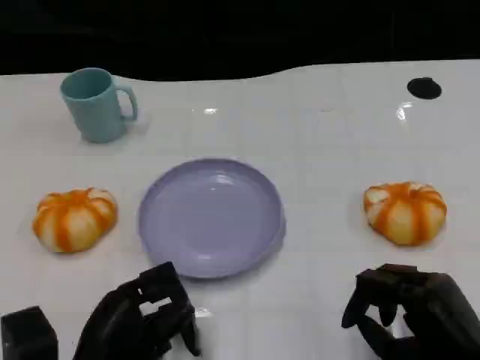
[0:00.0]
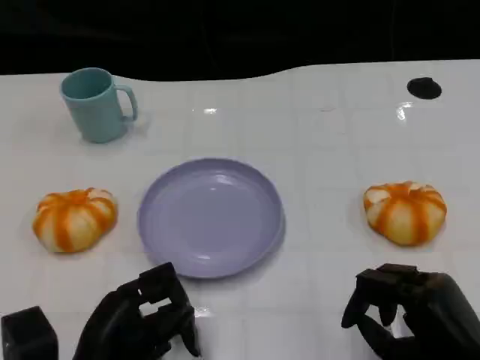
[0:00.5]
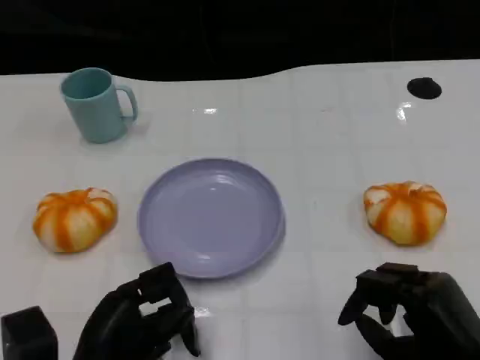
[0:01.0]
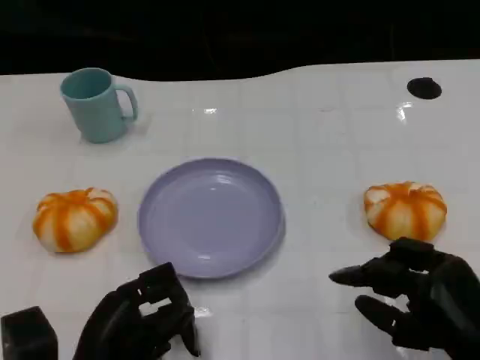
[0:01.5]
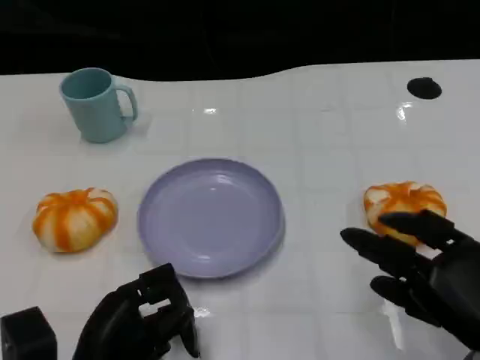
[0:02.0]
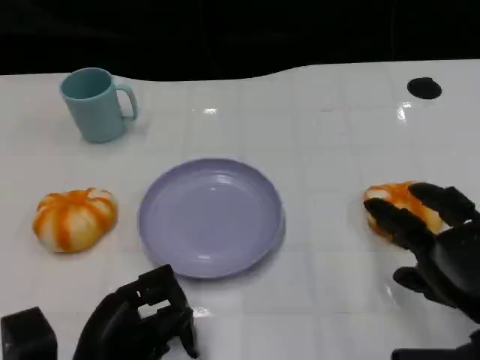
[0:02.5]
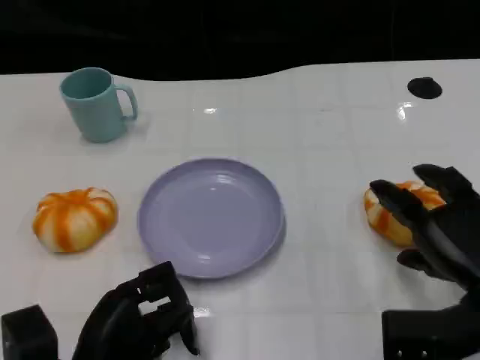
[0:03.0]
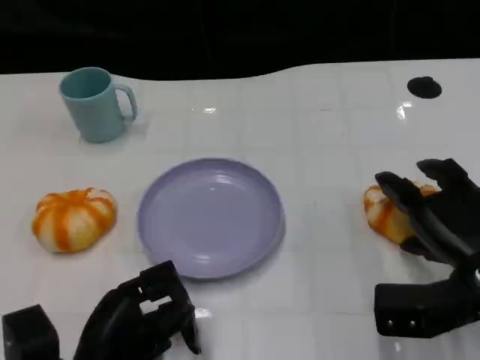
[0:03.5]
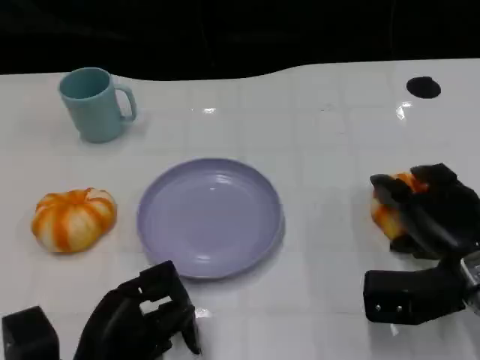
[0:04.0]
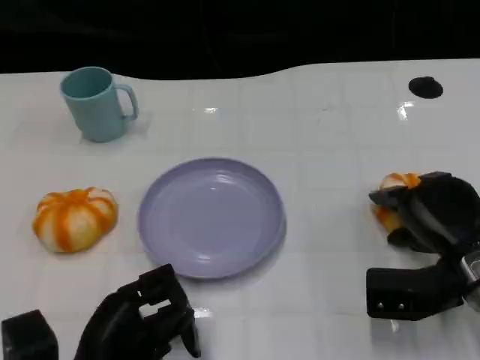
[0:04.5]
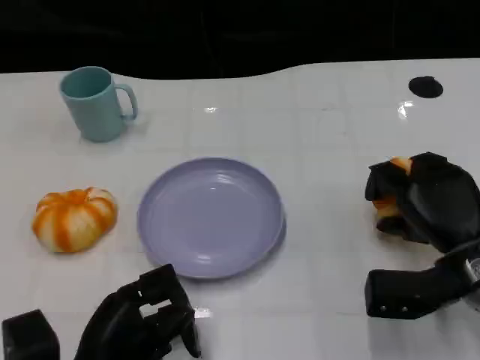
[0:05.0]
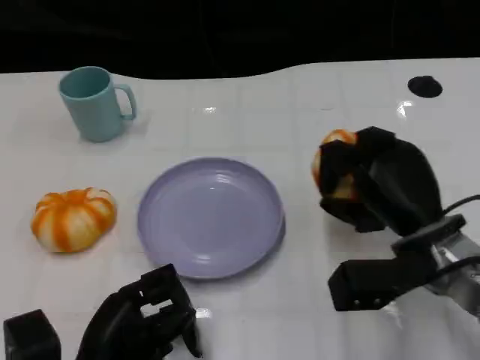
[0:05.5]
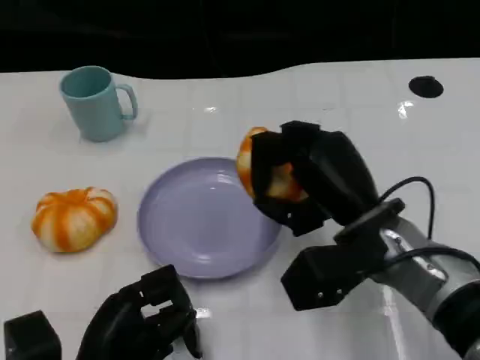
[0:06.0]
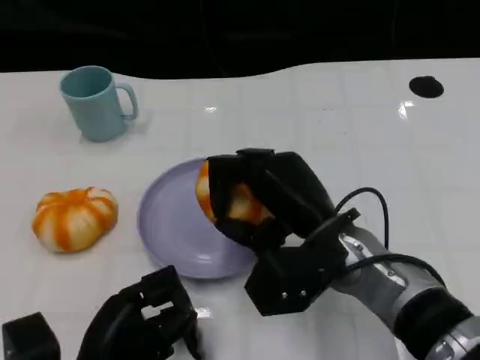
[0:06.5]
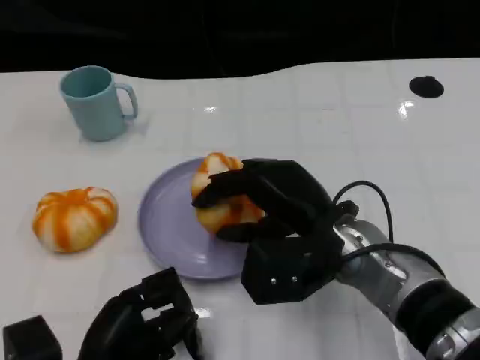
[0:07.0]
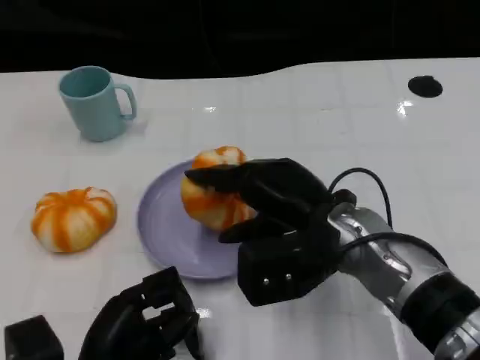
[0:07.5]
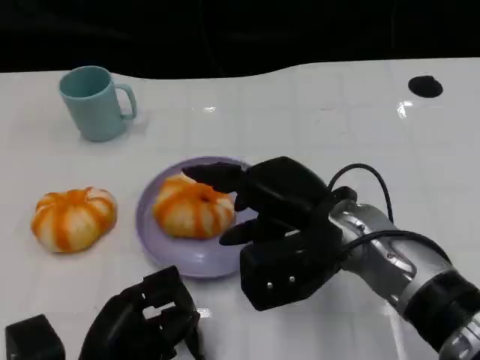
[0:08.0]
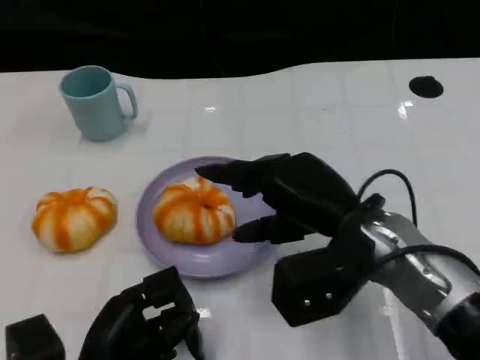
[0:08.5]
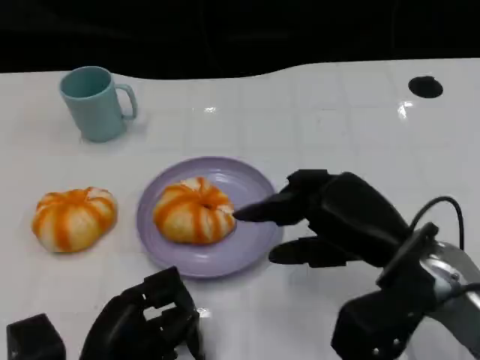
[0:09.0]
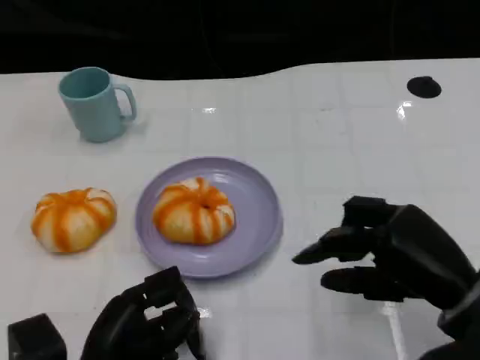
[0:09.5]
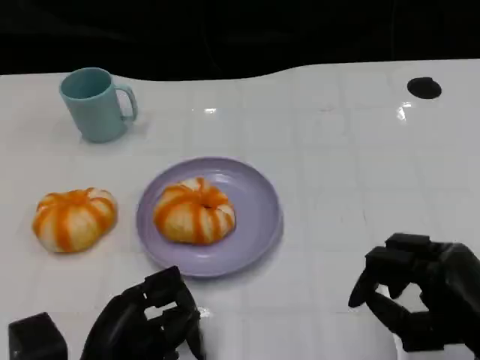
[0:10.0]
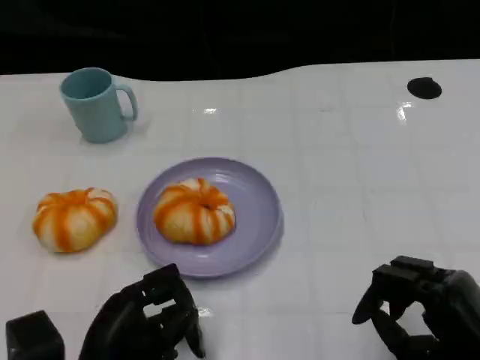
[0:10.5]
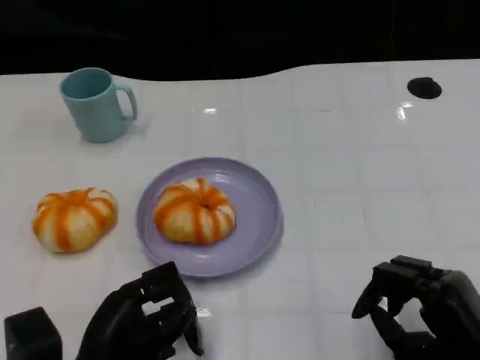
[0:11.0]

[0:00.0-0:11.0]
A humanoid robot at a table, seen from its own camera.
Task of the whole recording: Grasp the bread from the table and place it into the plate.
0:02.0 to 0:03.5: The right hand moves forward, approximately 10 cm.
0:03.5 to 0:05.5: The right hand goes roughly 5 cm to the left.
0:05.5 to 0:07.5: The right hand goes some 10 cm to the left.
0:07.5 to 0:09.0: The right hand heads to the right, covering about 10 cm.
0:09.0 to 0:11.0: The right hand moves downward, backward and to the right, some 15 cm.

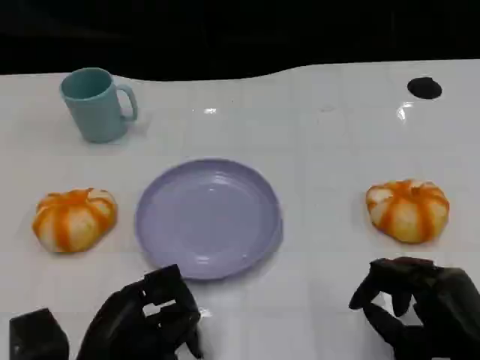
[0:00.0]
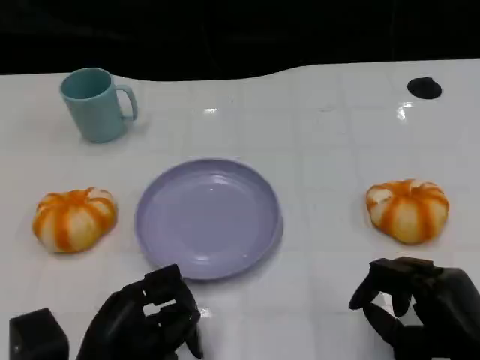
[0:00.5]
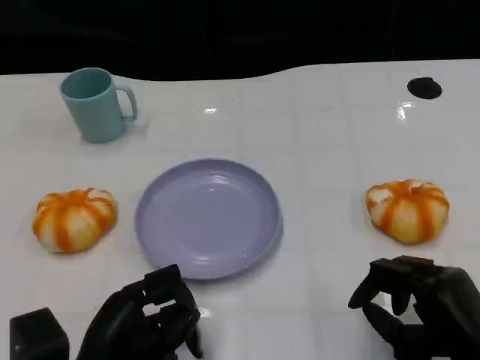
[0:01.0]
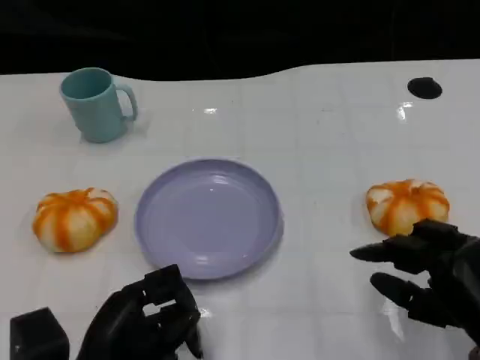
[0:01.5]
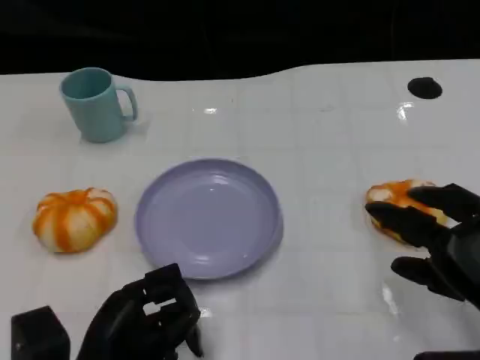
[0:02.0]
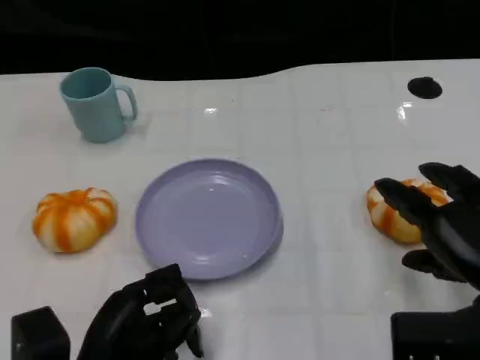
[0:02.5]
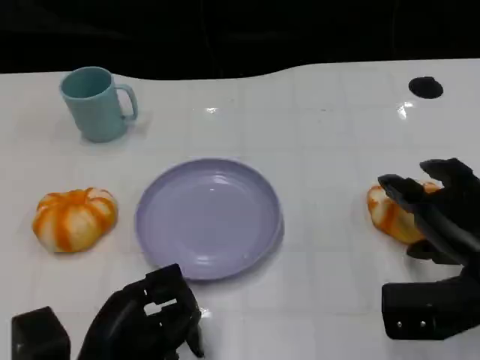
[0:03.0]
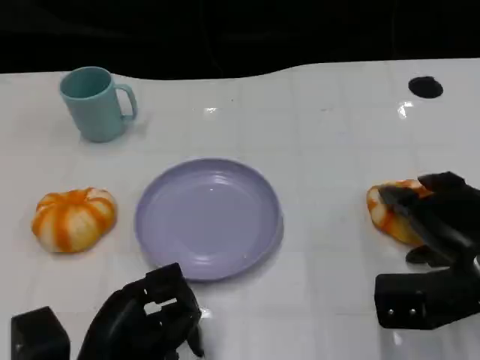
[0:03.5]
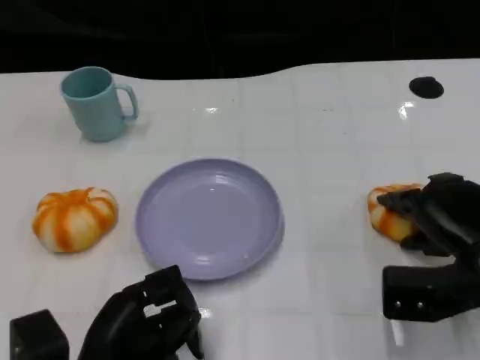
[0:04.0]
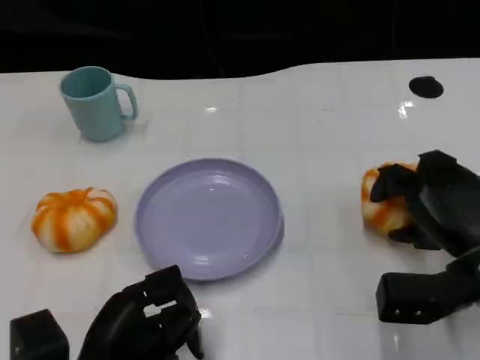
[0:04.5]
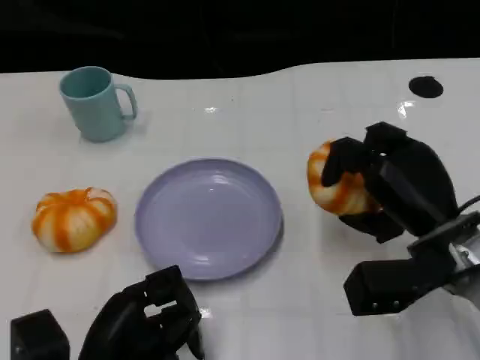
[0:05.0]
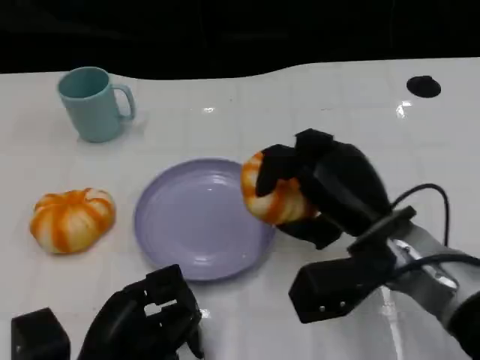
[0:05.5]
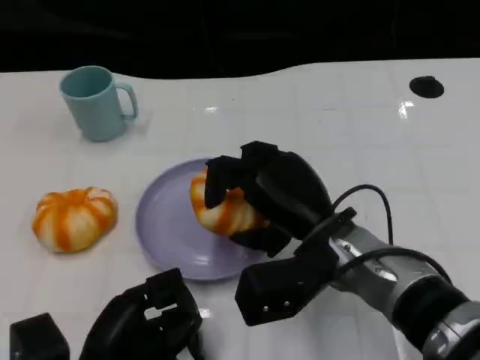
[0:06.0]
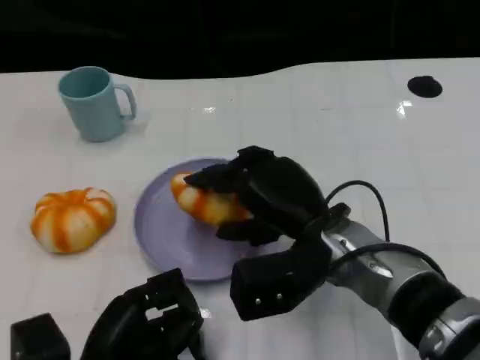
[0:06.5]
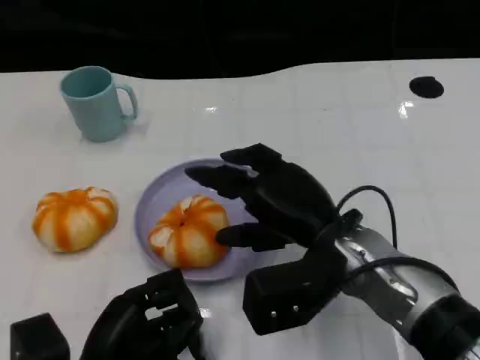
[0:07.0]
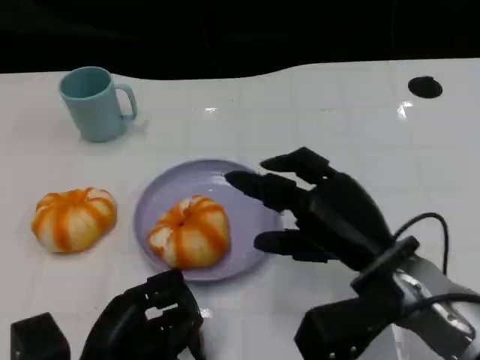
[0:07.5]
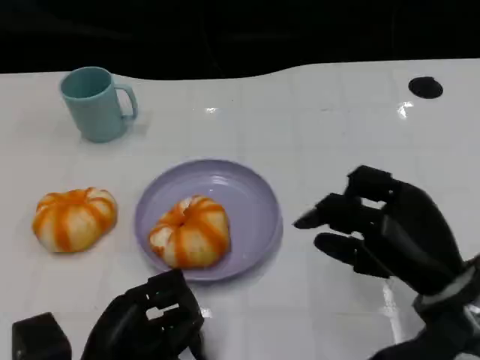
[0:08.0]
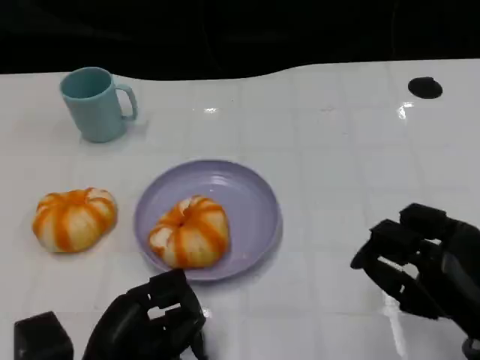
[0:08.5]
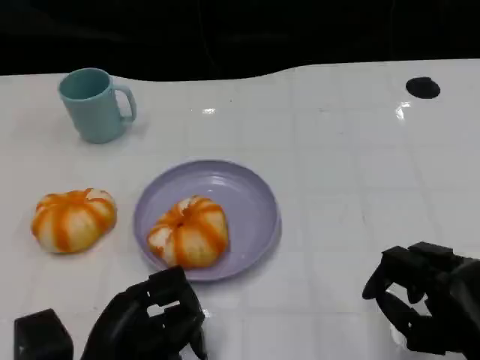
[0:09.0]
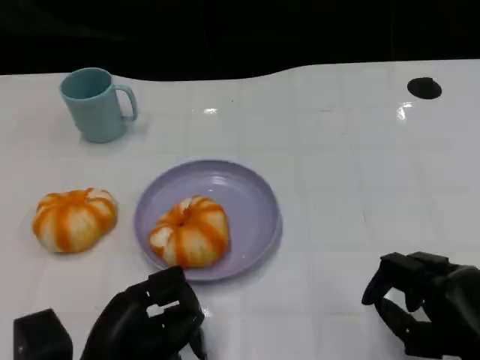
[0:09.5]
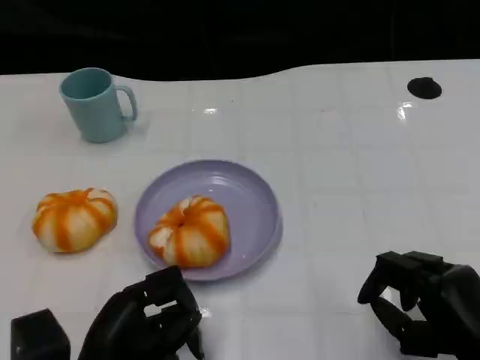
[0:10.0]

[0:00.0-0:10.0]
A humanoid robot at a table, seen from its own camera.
Task of the whole recording: Grasp the bread from the table and place it into the plate.
0:00.0 to 0:02.0: The right hand moves upward, roughly 5 cm.
0:02.0 to 0:04.0: The right hand heads forward, covering approximately 10 cm.
0:04.0 to 0:06.0: The right hand travels to the left by approximately 15 cm.
0:06.0 to 0:08.0: The right hand goes about 10 cm to the right.
0:08.0 to 0:10.0: The right hand is displaced backward by approximately 5 cm.

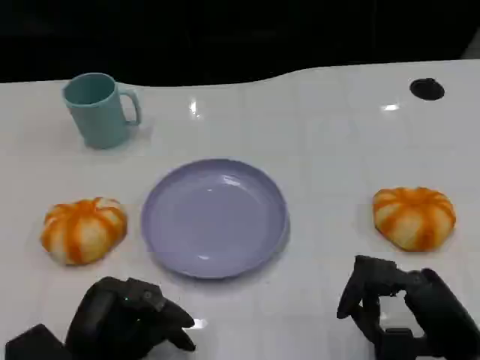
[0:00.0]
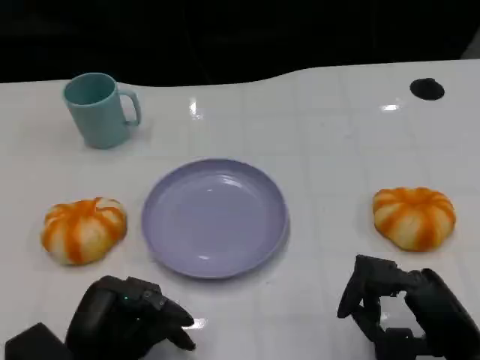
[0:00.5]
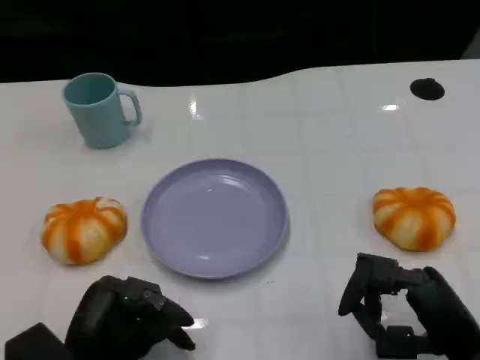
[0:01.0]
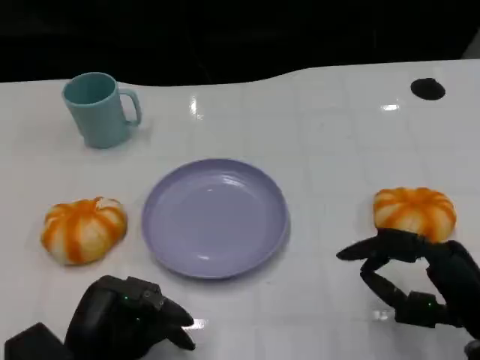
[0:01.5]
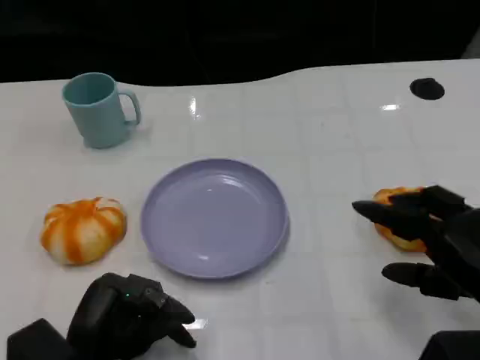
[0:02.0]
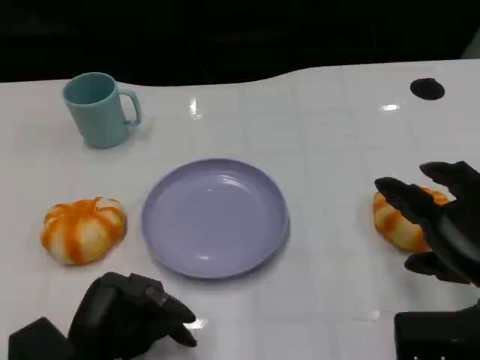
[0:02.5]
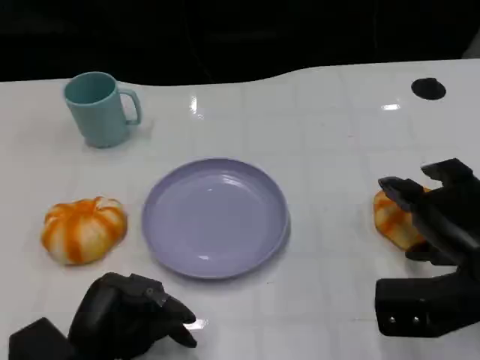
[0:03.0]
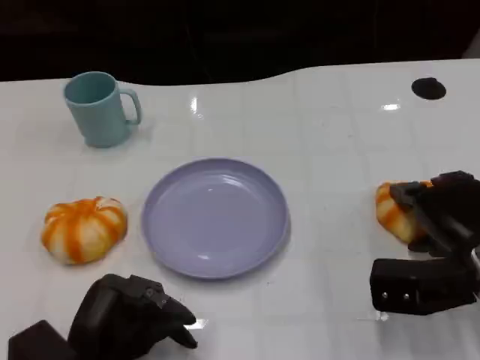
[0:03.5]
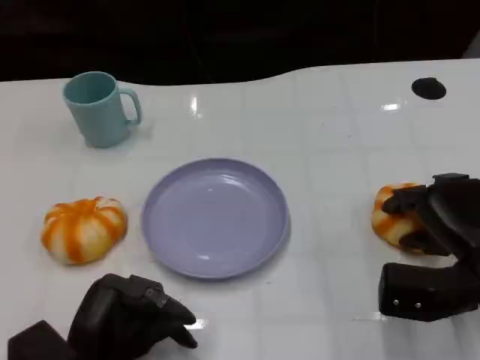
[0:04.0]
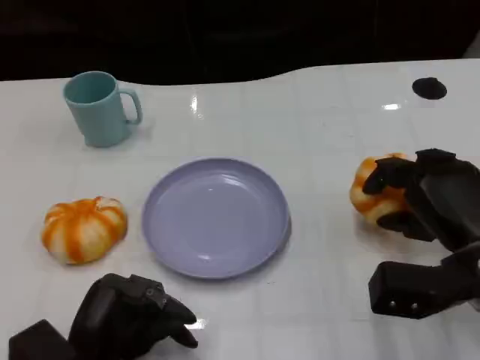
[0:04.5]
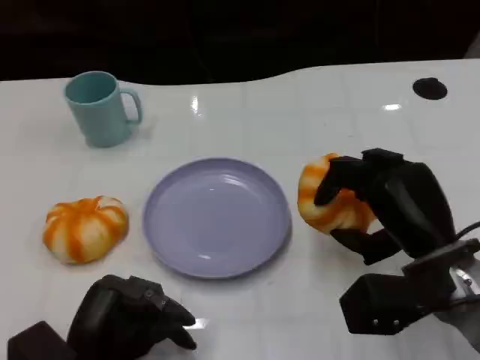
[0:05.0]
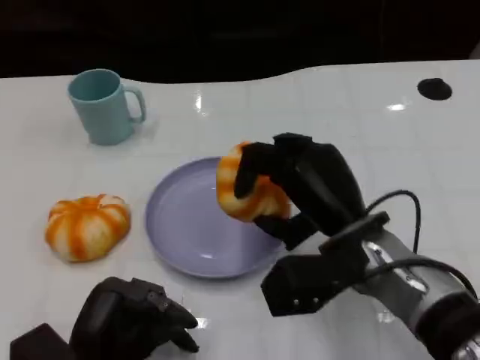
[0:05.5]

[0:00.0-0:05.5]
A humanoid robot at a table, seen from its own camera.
Task of the whole recording: Grasp the bread from the table and place it into the plate.
0:00.0 to 0:02.0: The right hand is displaced upward by approximately 5 cm.
0:02.0 to 0:03.5: The right hand heads forward, covering some 5 cm.
0:03.5 to 0:05.5: The right hand moves to the left, some 15 cm.
